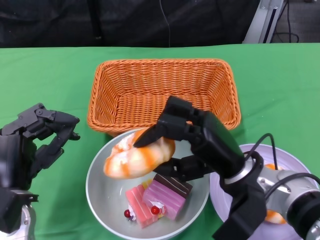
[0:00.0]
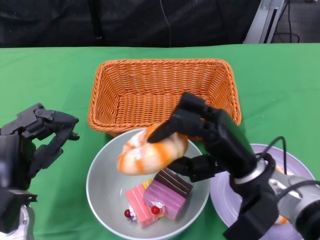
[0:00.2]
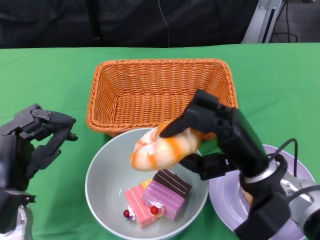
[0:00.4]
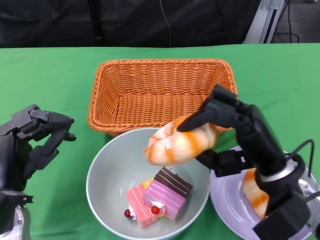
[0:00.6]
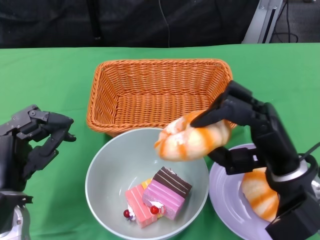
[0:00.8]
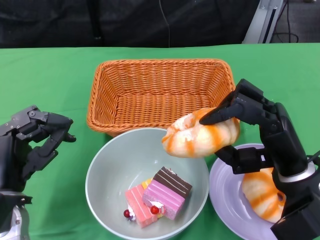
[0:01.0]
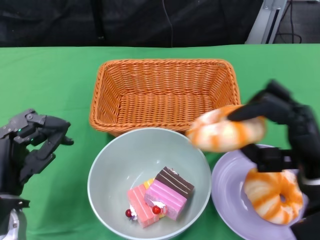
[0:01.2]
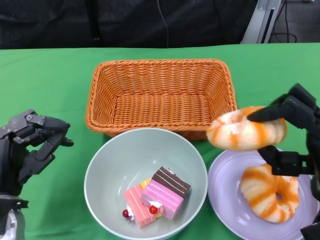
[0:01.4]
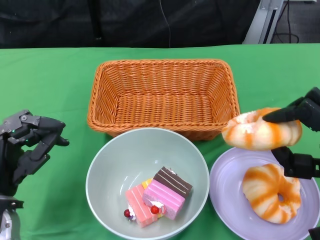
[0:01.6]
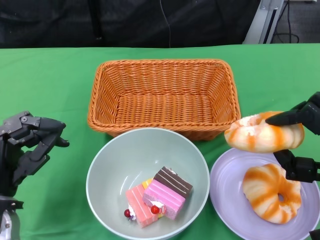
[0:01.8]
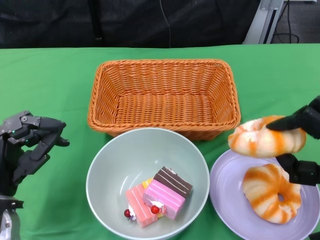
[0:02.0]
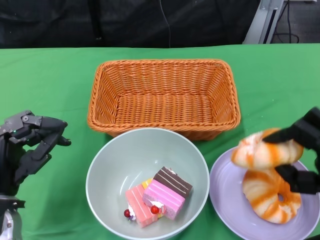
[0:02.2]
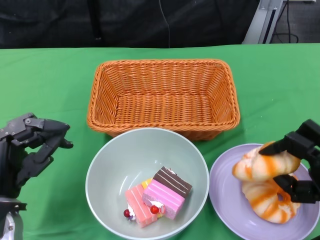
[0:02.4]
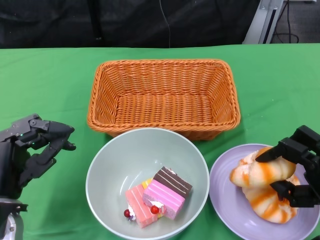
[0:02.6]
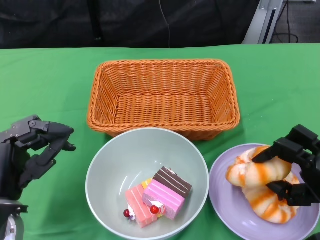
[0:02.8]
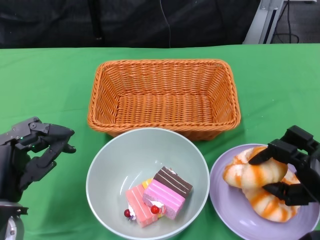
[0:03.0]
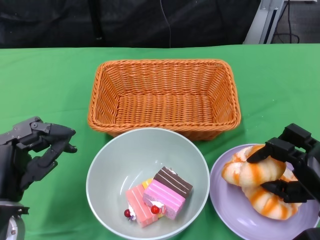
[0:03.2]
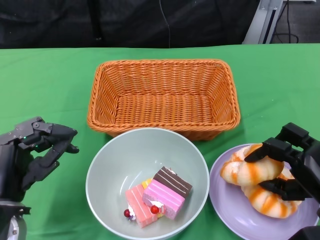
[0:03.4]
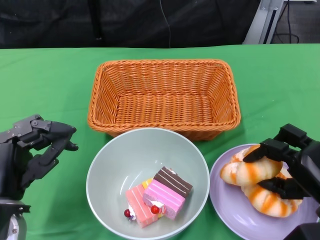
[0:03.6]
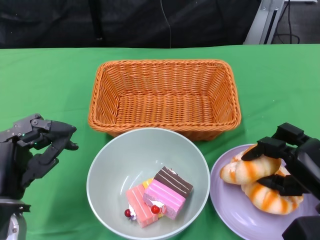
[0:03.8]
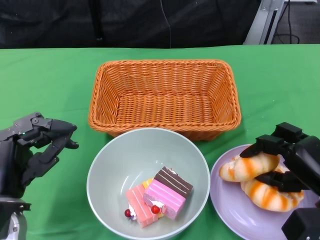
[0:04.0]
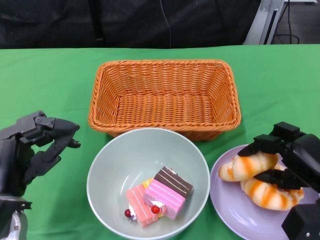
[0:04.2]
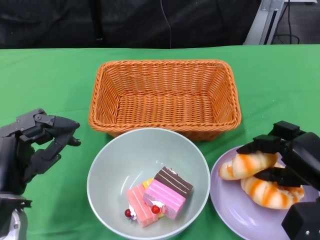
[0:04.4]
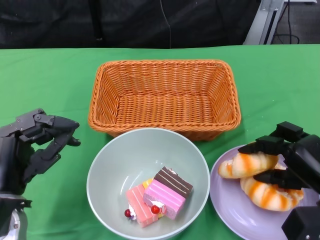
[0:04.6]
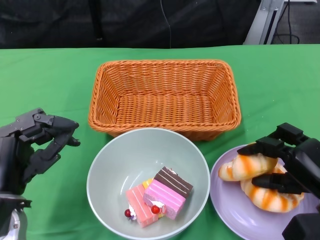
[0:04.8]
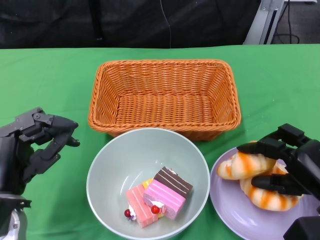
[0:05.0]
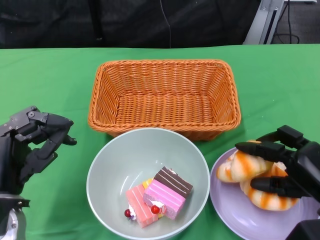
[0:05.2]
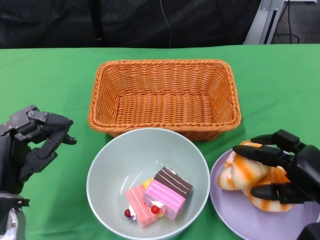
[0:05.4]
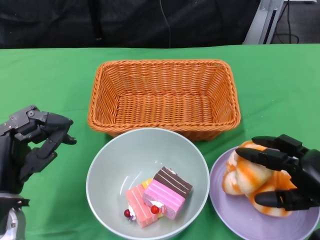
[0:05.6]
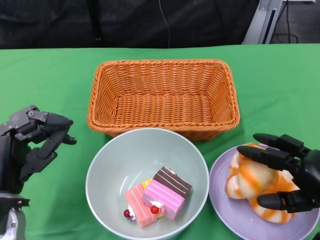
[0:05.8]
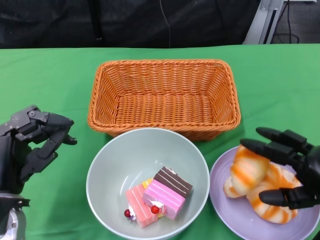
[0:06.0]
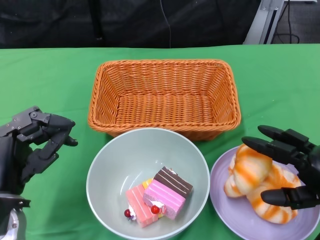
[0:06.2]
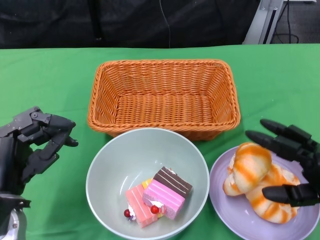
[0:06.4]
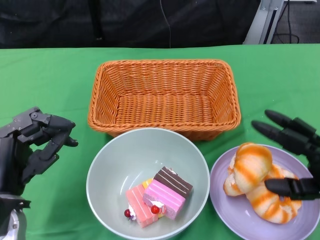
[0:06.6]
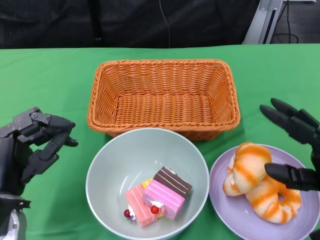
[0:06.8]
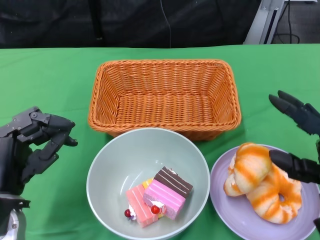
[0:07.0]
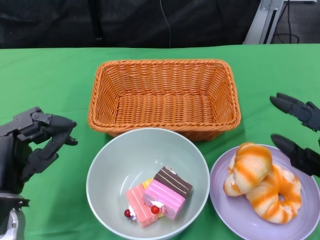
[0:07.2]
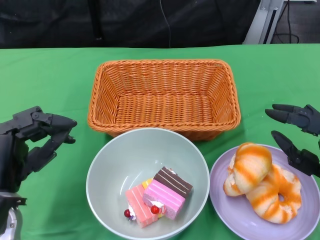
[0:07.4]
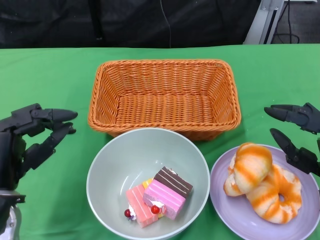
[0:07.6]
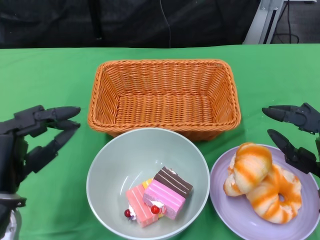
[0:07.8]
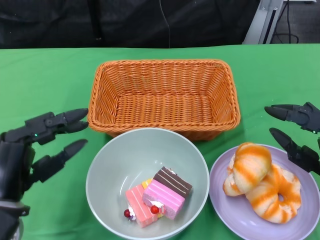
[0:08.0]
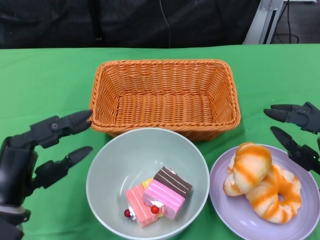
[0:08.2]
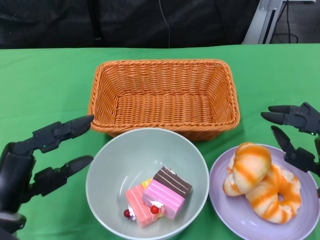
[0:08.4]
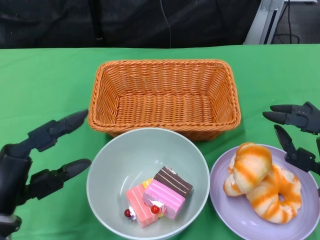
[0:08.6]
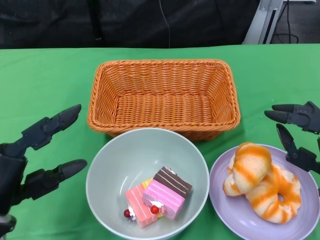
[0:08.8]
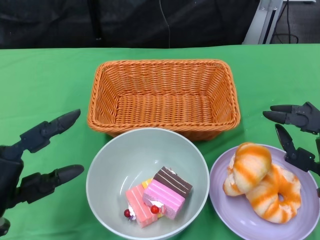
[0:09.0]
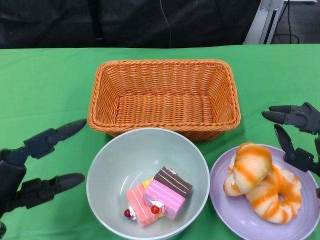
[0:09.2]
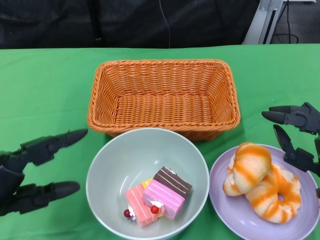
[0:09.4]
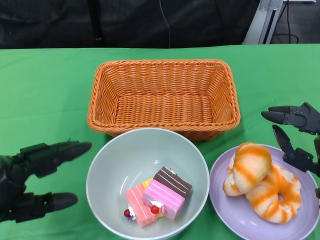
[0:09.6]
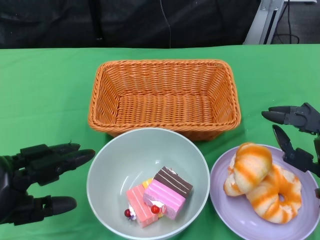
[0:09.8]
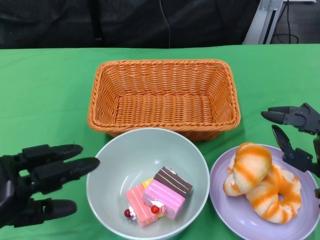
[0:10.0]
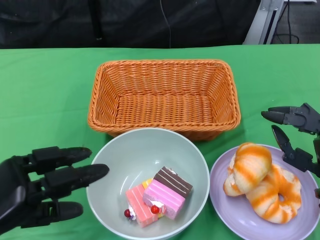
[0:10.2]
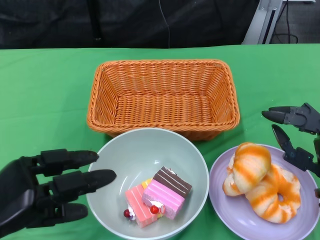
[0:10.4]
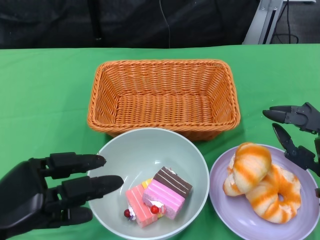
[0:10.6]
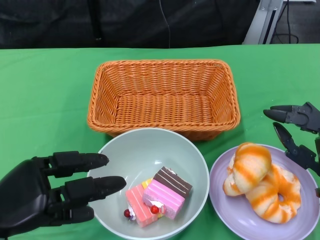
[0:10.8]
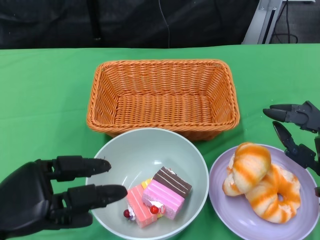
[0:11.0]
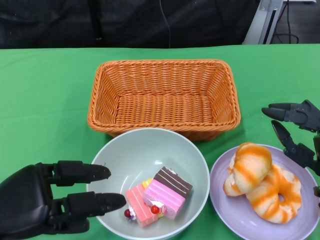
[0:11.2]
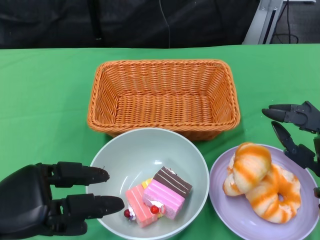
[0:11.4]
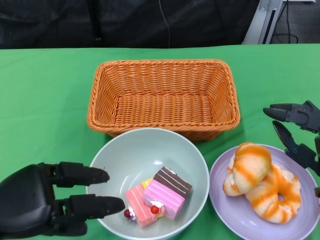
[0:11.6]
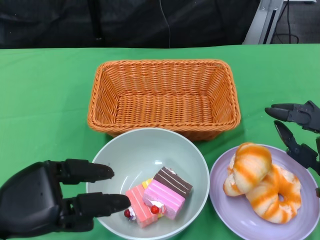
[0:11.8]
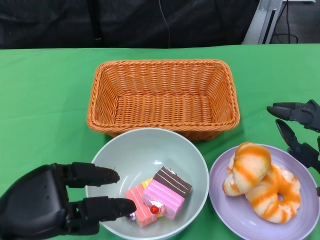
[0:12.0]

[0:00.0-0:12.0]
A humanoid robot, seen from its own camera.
Step, 0:00.0 to 0:06.6: Pick up the bread with the right gripper and place it on the plate.
0:00.0 to 0:01.6: The right hand heads to the right, covering some 15 cm.
0:03.0 to 0:06.0: The hands stay close to where they were, moving slightly.
0:10.4 to 0:12.0: The hands stay close to where they were, moving slightly.

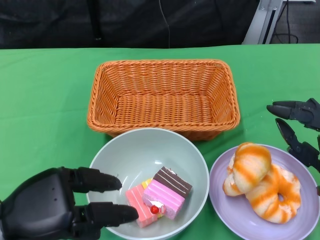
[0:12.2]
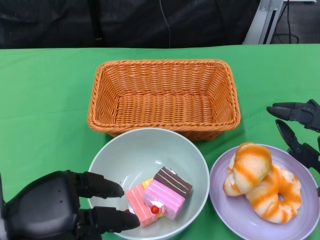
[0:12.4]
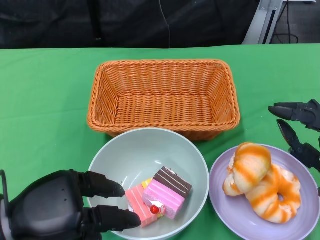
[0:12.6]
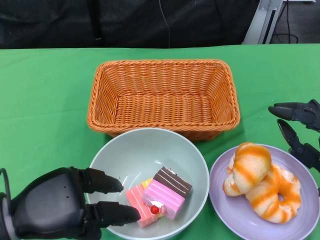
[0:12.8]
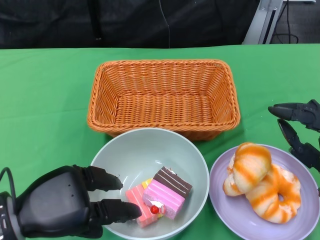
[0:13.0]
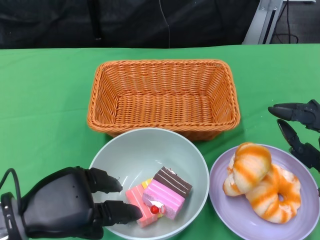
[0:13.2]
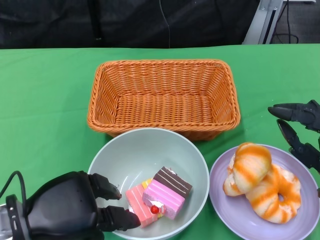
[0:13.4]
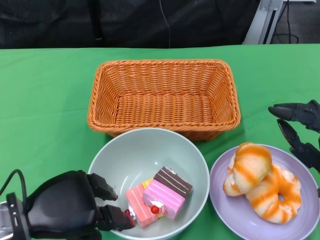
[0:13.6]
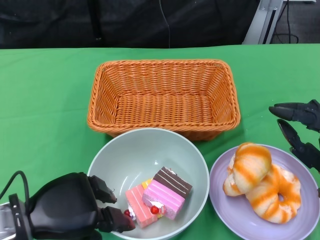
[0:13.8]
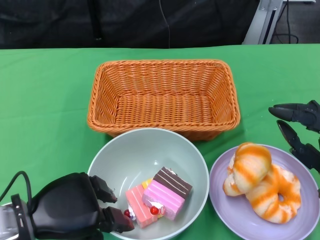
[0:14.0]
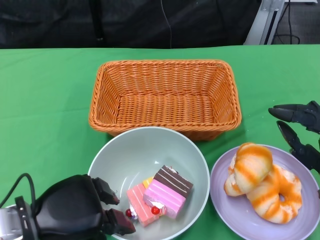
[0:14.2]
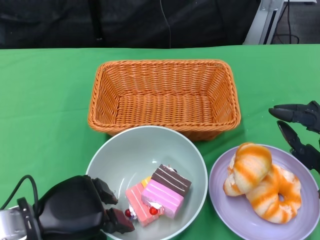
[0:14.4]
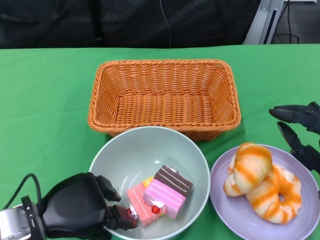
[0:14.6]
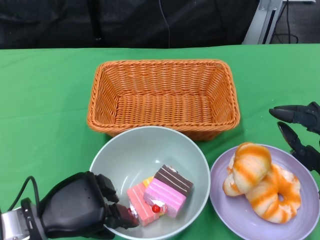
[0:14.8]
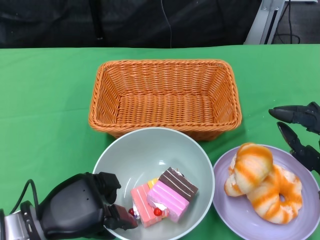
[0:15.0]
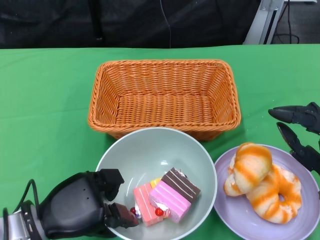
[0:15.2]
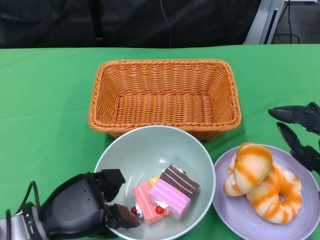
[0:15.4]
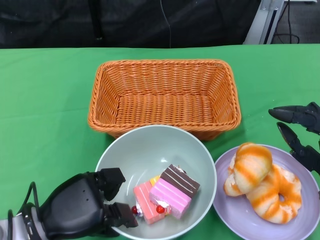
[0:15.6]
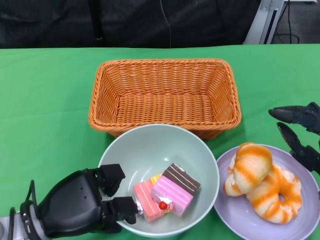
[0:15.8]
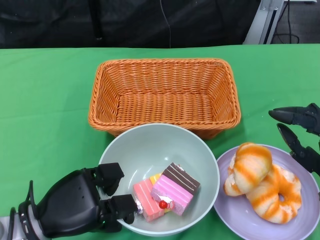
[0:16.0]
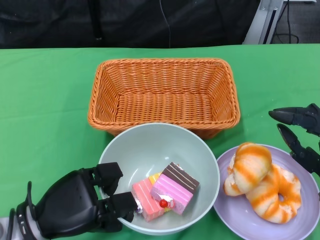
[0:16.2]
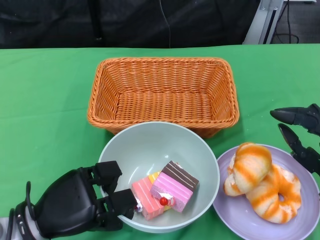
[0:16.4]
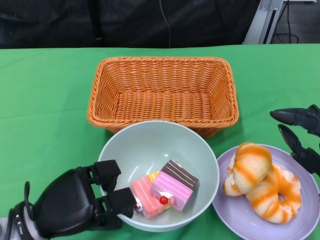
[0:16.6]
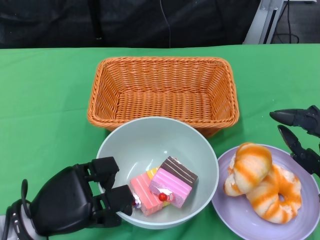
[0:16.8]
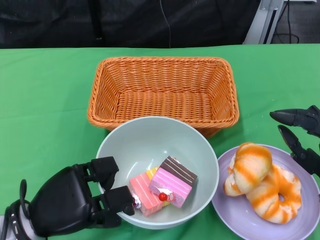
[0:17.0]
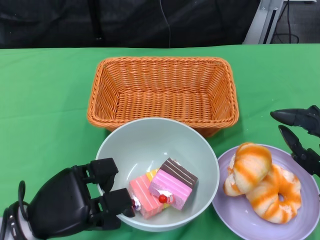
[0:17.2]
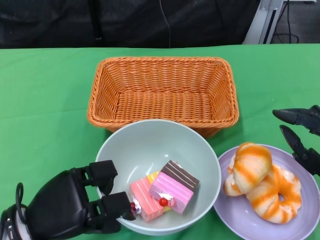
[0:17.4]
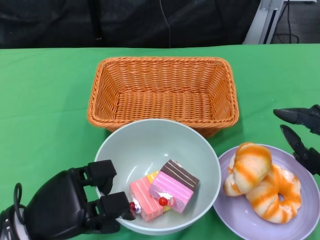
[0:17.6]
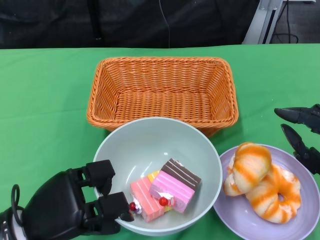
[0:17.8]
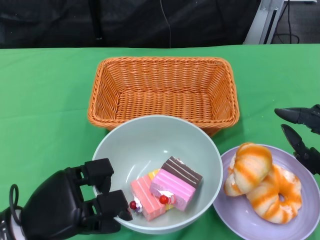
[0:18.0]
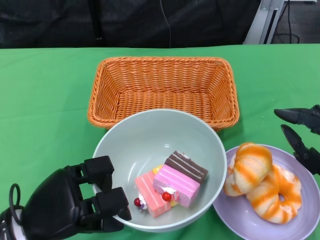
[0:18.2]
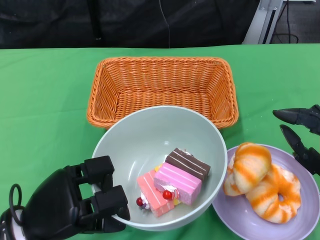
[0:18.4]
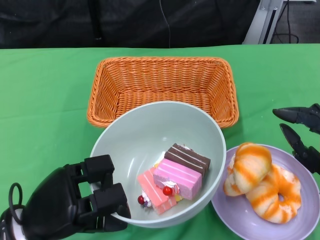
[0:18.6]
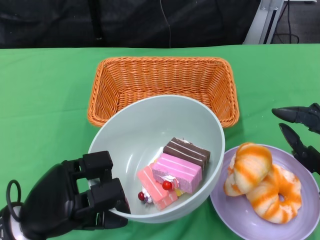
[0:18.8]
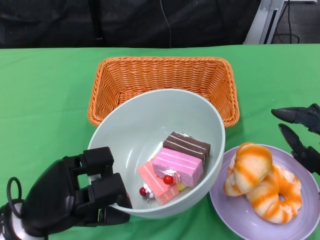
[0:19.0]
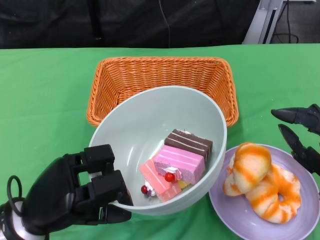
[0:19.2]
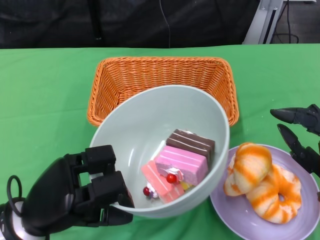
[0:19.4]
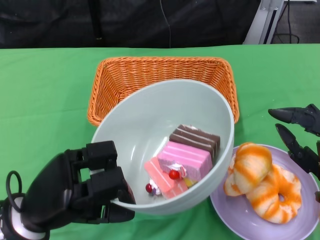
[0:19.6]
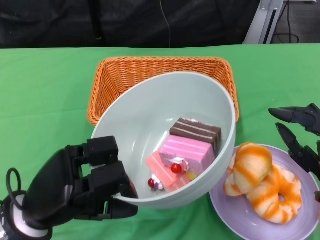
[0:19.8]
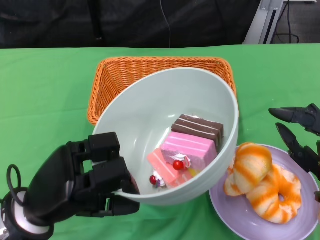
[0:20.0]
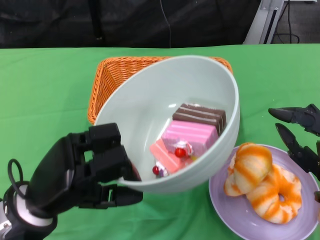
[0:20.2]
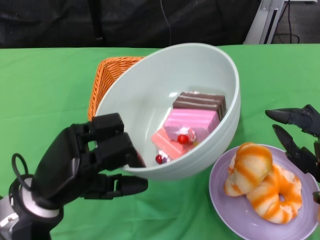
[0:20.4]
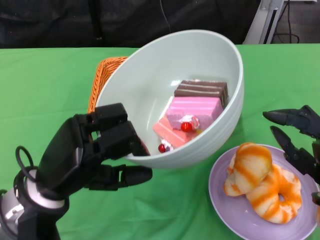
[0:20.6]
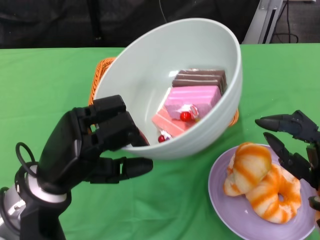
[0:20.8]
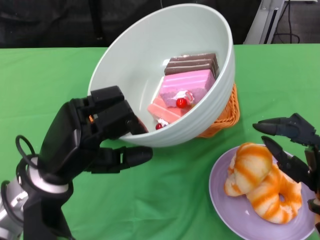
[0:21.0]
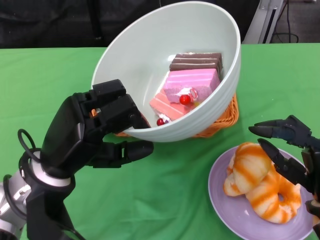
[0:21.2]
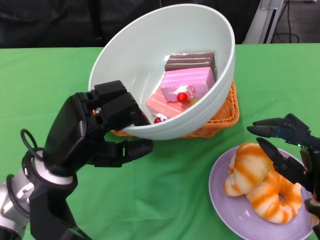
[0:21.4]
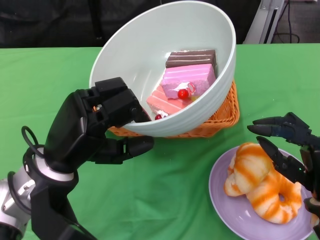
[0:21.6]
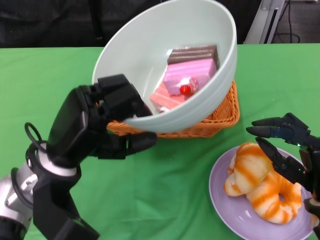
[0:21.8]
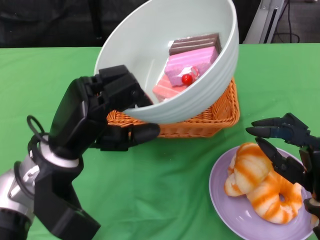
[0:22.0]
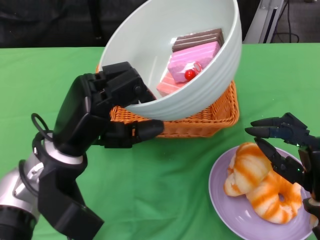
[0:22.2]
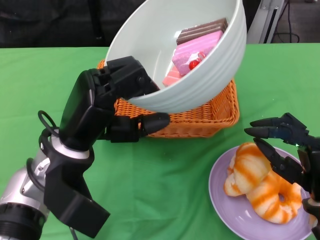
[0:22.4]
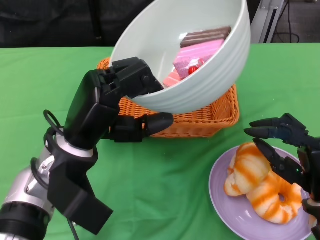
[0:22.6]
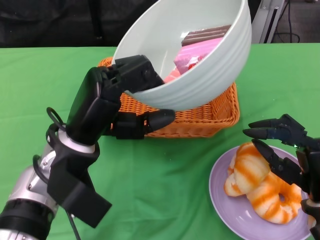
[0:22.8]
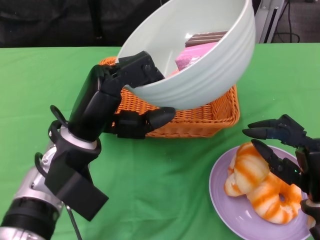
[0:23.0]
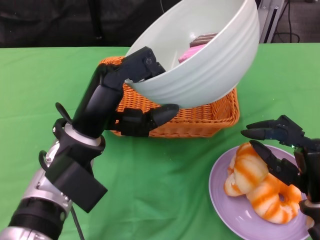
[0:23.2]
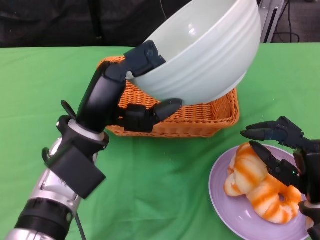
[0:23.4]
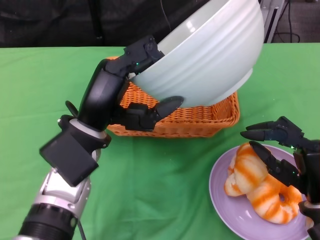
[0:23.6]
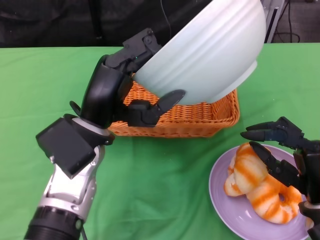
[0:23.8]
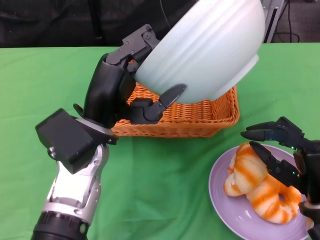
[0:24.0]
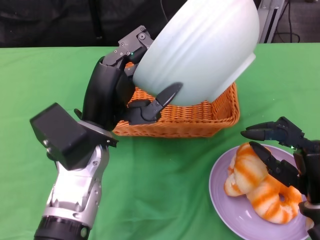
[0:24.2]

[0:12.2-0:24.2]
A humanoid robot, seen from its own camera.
Step, 0:12.2 to 0:16.4: Grasp the bowl with the left gripper.
0:12.2 to 0:15.2: The hands stay close to where they were, moving slightly.
0:15.2 to 0:16.6: There are only small adjustments of the hands.
0:16.6 to 0:18.2: The hands stay close to where they were, moving slightly.
0:19.8 to 0:21.2: The left hand moves about 5 cm.
